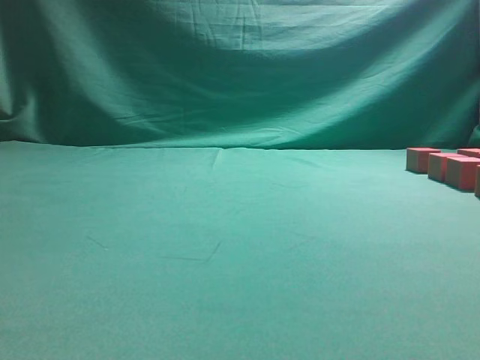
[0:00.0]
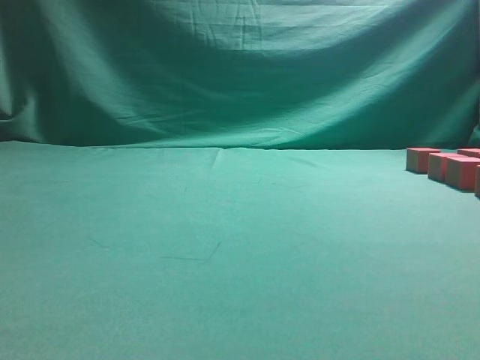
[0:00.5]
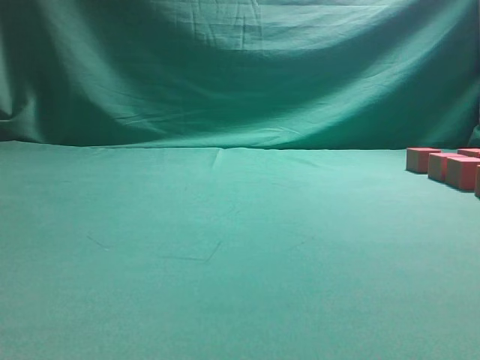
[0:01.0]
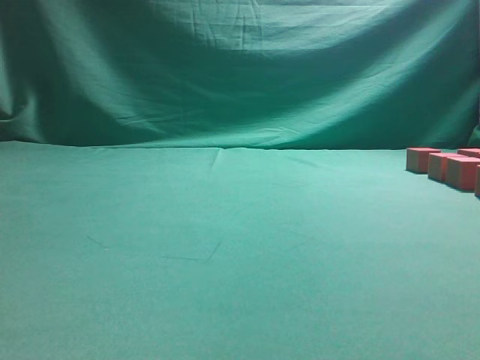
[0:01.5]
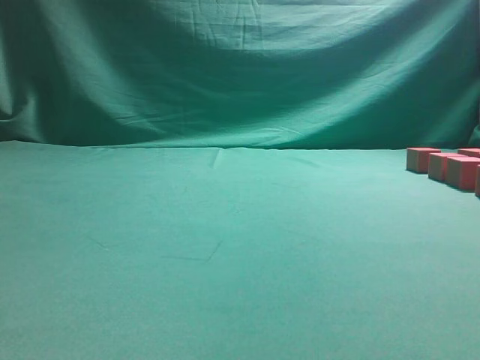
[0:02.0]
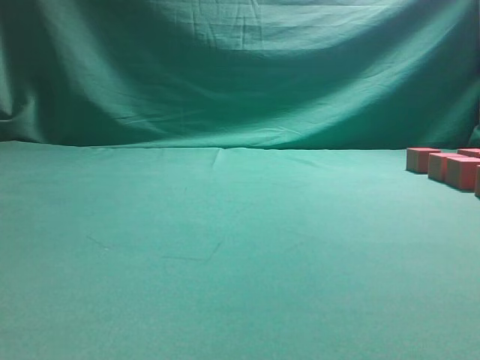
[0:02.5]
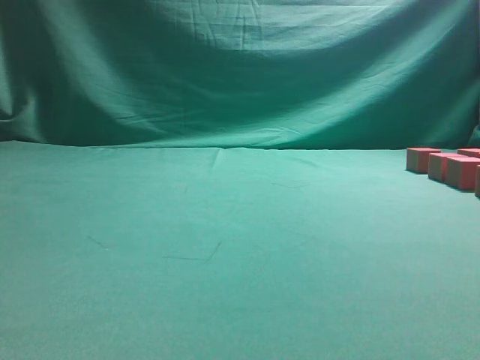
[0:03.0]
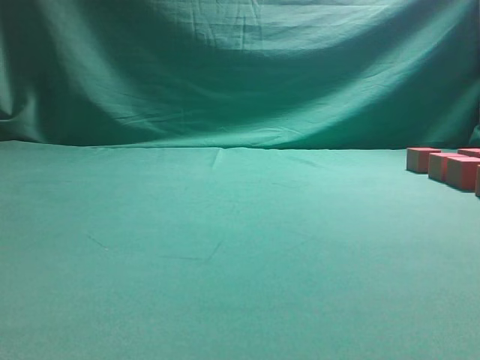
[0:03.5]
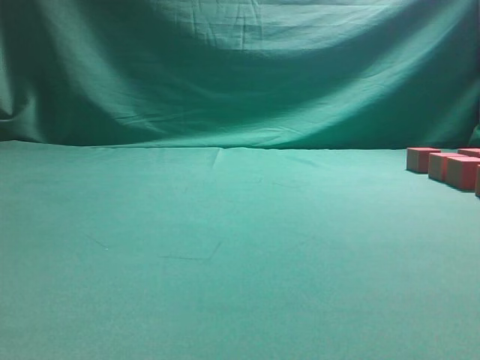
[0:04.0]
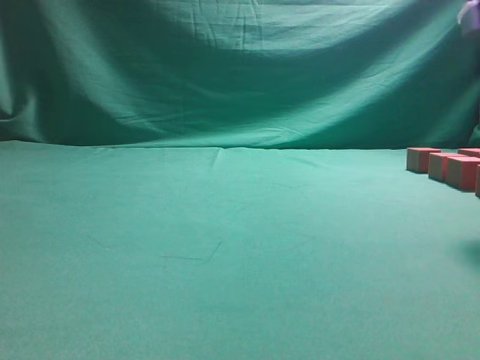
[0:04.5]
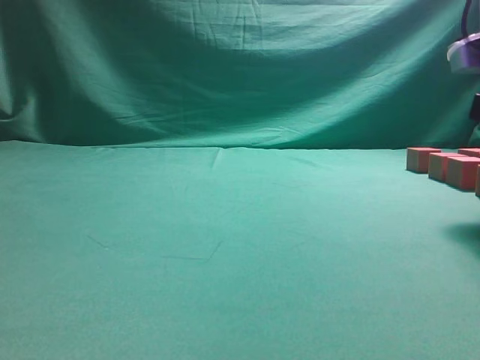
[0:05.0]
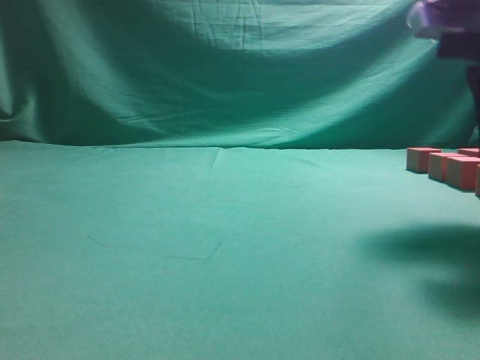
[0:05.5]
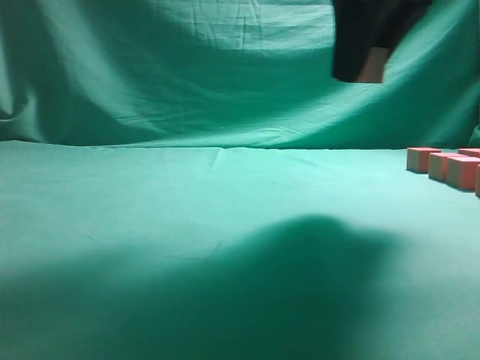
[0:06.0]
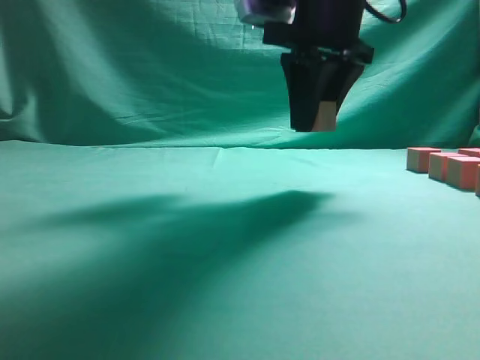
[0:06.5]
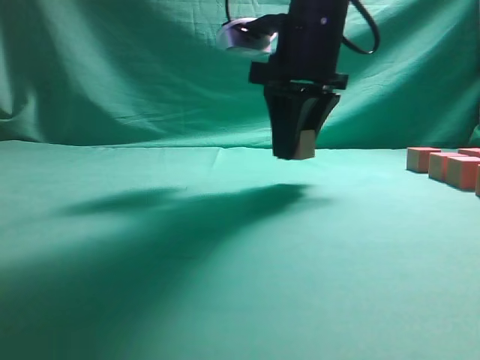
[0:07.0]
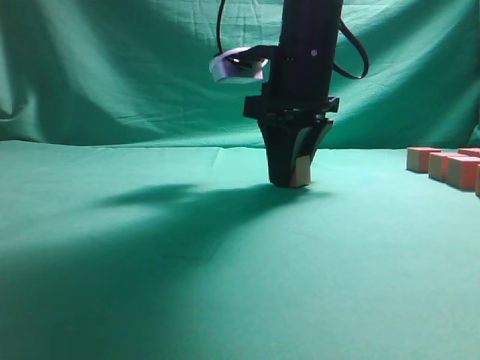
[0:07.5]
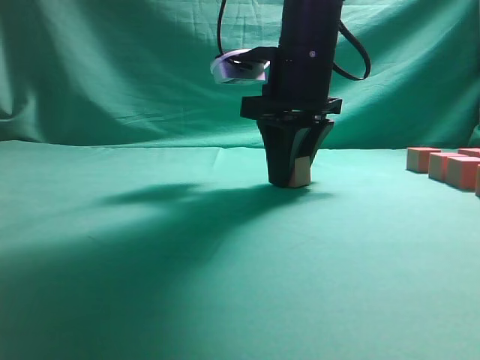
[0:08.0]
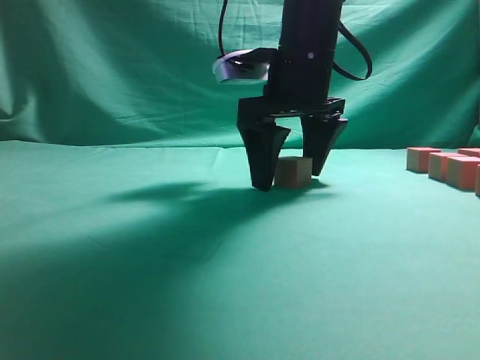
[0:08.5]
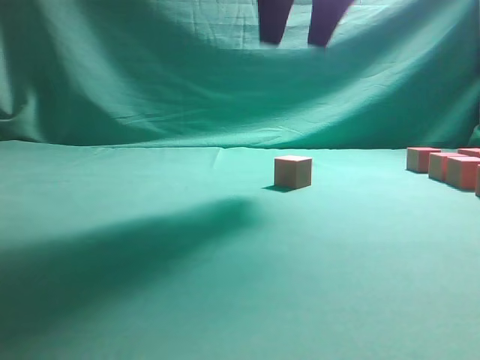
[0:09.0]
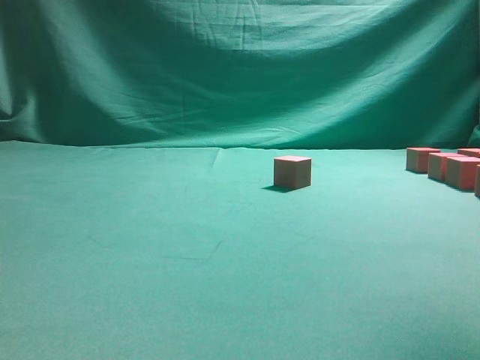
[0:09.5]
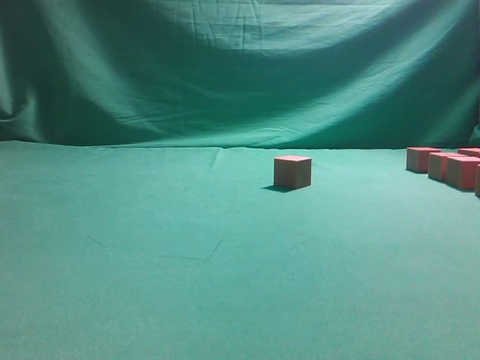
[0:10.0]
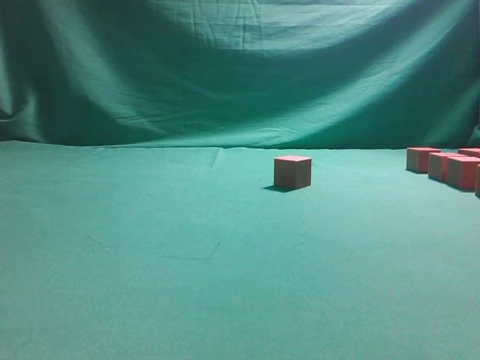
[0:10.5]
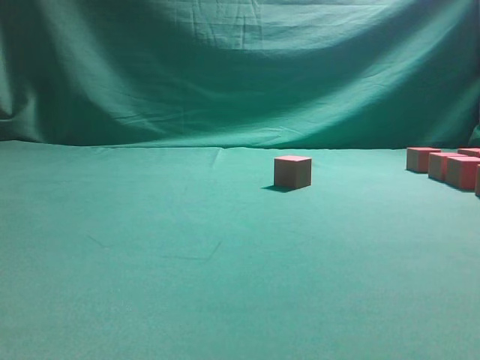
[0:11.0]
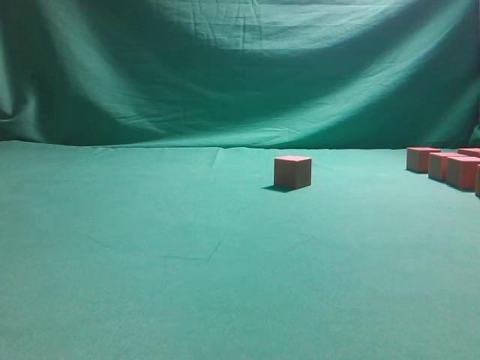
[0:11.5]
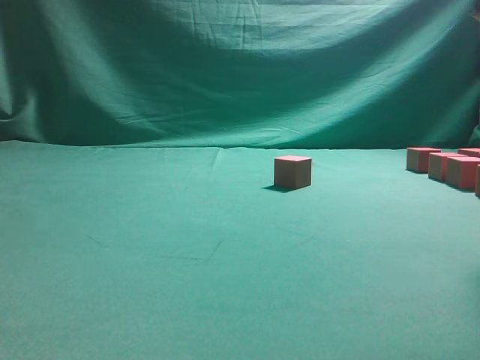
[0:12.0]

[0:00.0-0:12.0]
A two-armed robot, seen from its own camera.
Task of the whole recording: pick up the multiple cubes in two columns one by one and place them in another position on the table.
Step, 0:00.0 to 0:08.5: Place the block at the correct position to assemble the letter S.
0:04.0 to 0:06.0: The right gripper moves to the left and forward, about 15 cm.
0:06.0 to 0:08.0: The right gripper heads downward, forward and to the left, covering about 15 cm.
0:08.0 to 0:10.0: The right gripper travels to the right, upward and backward by some 30 cm, and opens up.

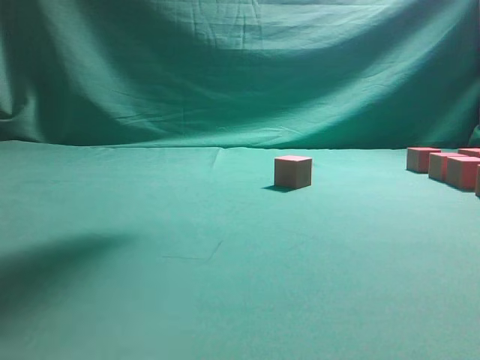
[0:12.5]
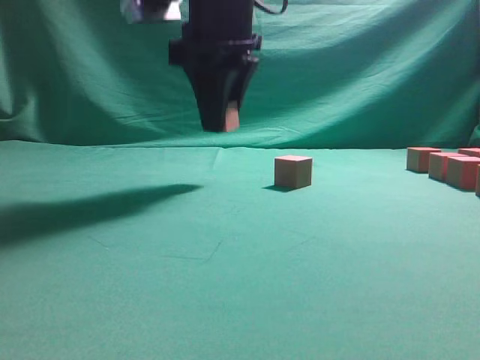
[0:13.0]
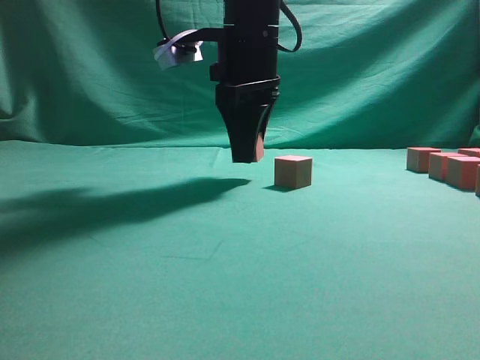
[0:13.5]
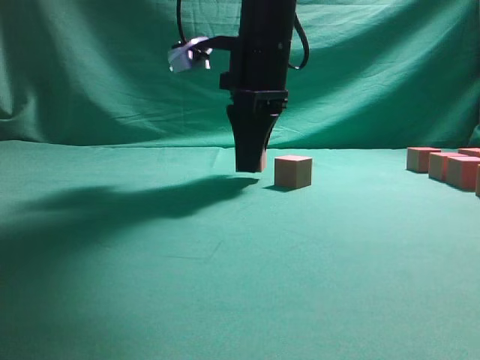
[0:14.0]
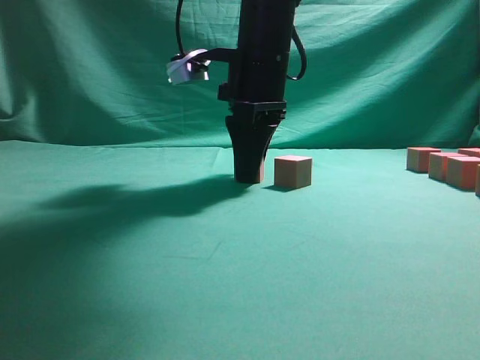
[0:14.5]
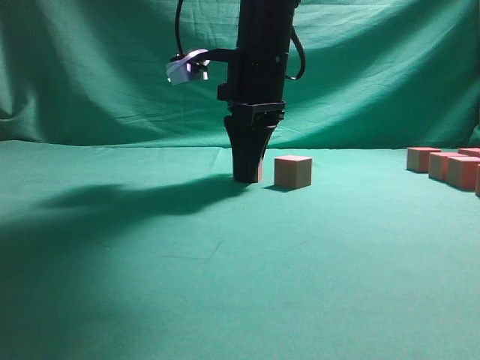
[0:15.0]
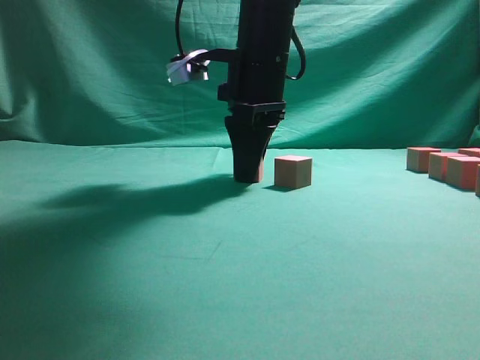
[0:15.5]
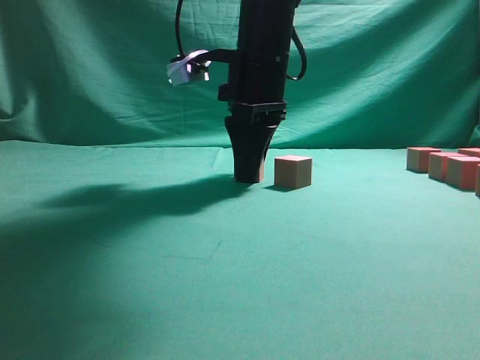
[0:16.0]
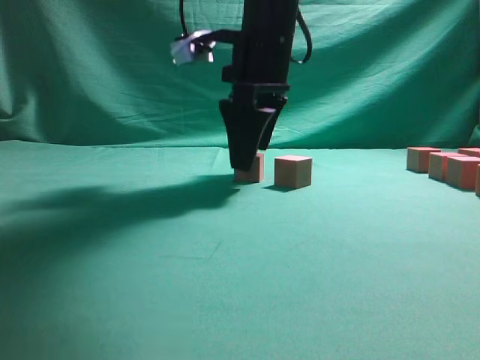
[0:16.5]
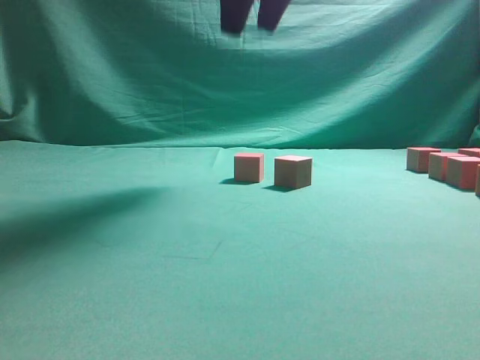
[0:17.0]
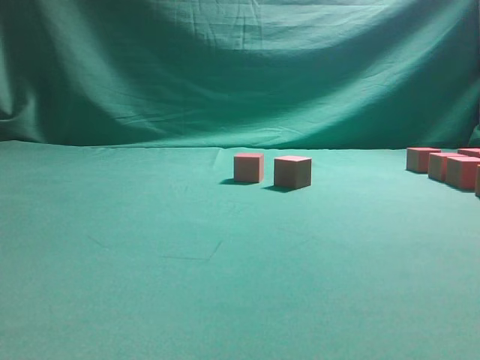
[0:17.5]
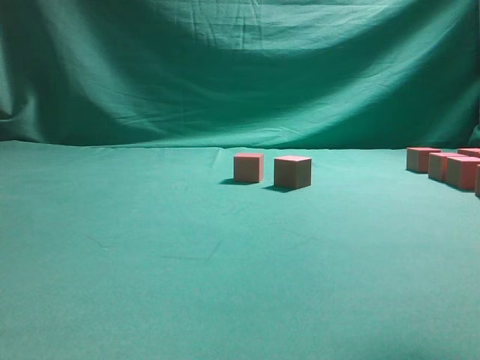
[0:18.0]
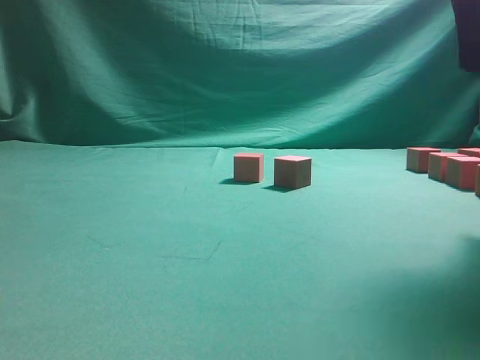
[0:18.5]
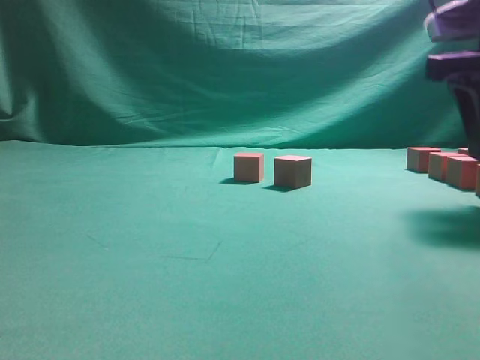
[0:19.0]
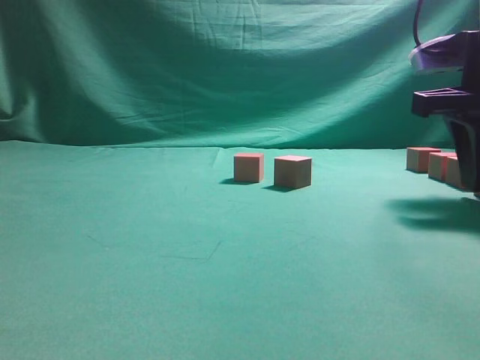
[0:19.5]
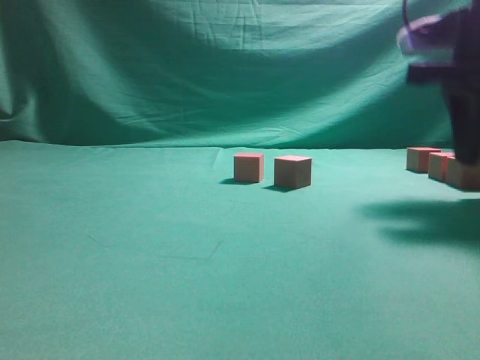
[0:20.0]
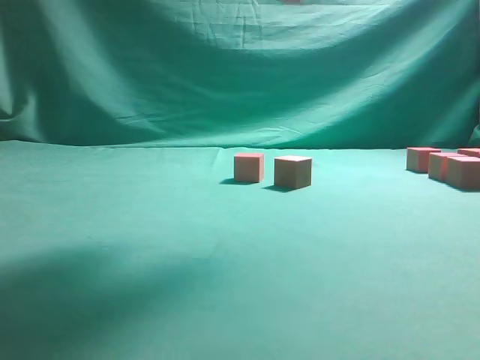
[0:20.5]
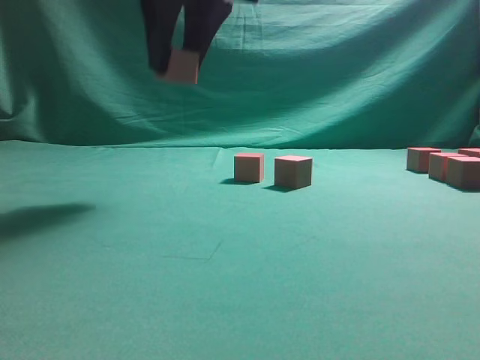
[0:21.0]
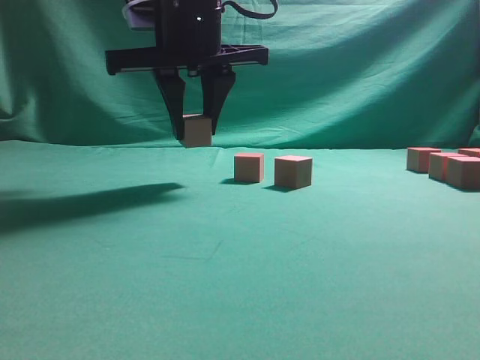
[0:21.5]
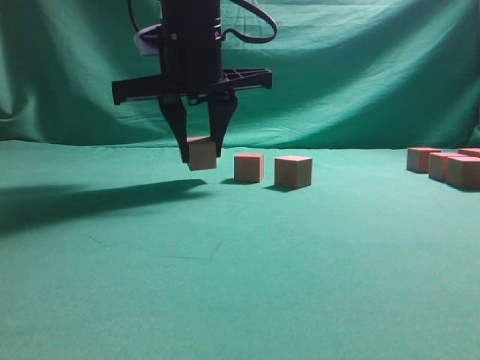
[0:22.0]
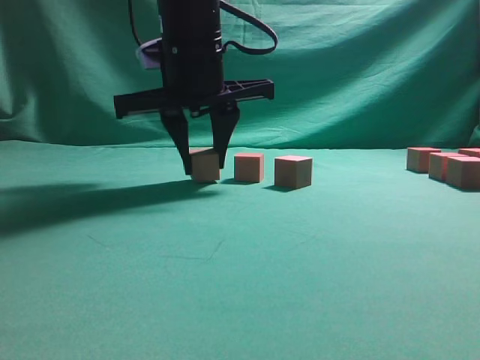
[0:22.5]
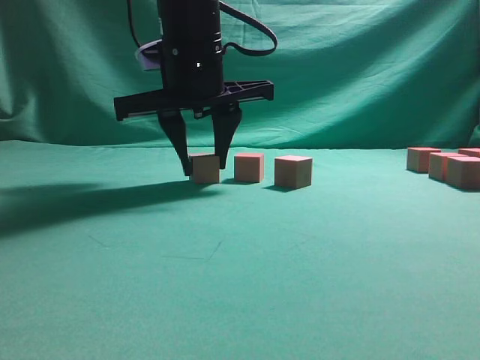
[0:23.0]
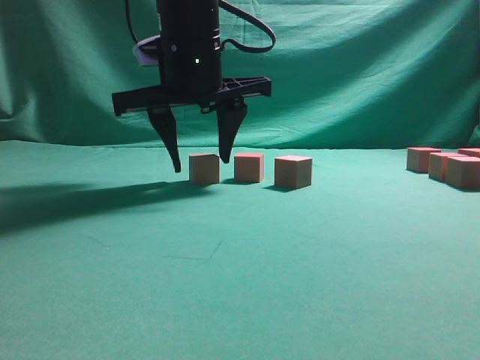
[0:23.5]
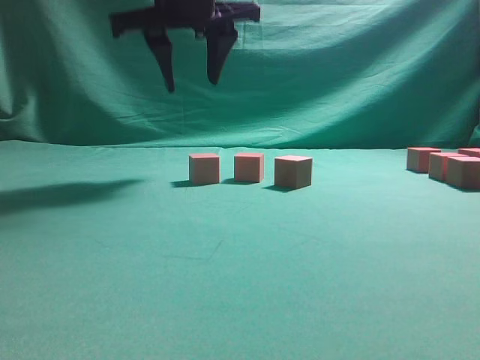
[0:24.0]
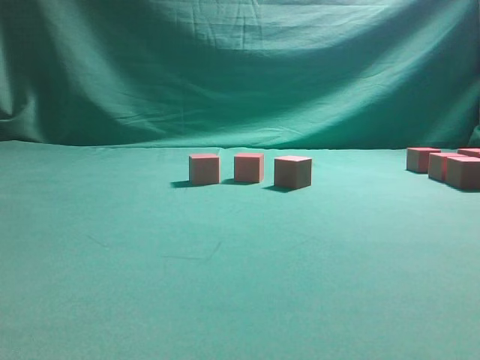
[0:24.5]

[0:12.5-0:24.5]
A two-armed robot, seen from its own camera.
Task of the whole recording: pick up the multiple cubes in two columns one by one and place them in another position on the table.
Step, 0:13.0 to 0:16.5: Place the block at the correct position to assemble the letter S.
Step, 0:17.0 to 0:20.0: Pick up the block on the table.
Step, 0:20.5 to 0:24.0: Place the block at the correct position to assemble the letter S.
0:12.5 to 0:14.5: The right gripper is displaced downward and forward by roughly 20 cm.
0:14.5 to 0:16.5: The right gripper opens its fingers.
0:16.5 to 0:18.5: The right gripper goes approximately 25 cm to the right and backward, and travels upward and back again, approximately 30 cm each way.
0:18.5 to 0:20.5: The right gripper moves to the left and upward, approximately 15 cm, and closes its fingers.
0:20.5 to 0:22.5: The right gripper goes about 20 cm downward, to the left and forward.
0:22.5 to 0:24.5: The right gripper heads upward, covering approximately 30 cm.

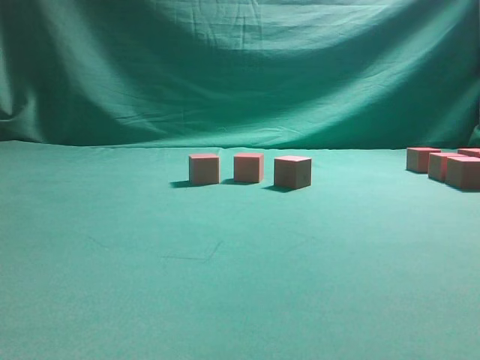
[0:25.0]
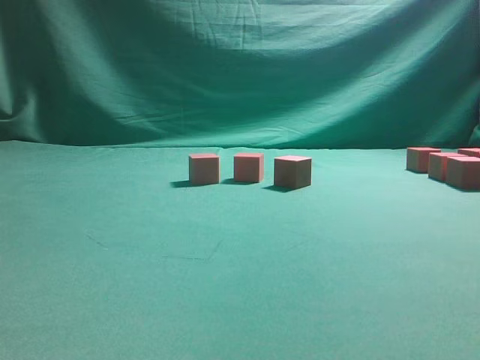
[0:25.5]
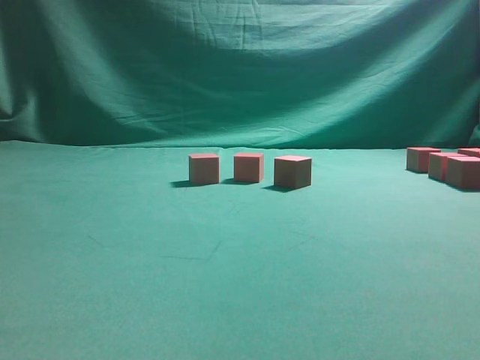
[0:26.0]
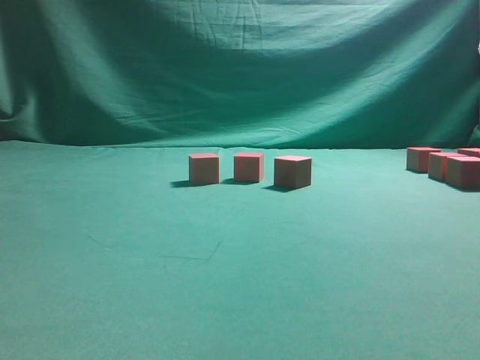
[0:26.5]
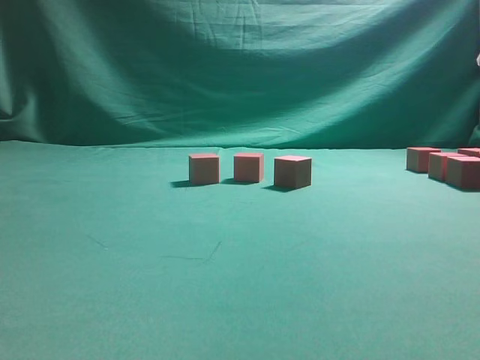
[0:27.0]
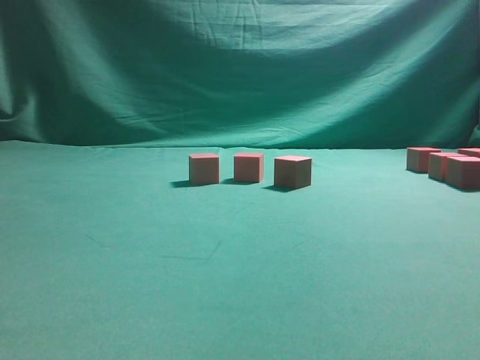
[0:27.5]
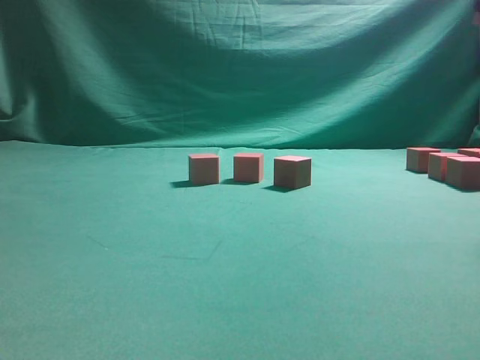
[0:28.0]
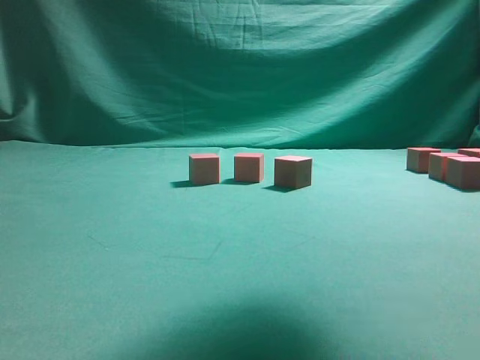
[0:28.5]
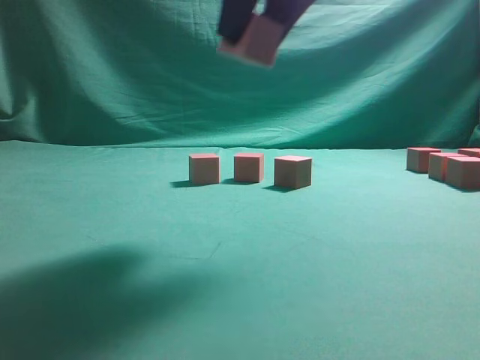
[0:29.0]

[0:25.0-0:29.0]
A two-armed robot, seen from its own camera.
Task of the whole recording: pick up the multiple cubes in two columns one by one and place them in another position on the table.
Step, 0:25.0 to 0:28.5: Pick up the block on the table.
0:27.0 to 0:29.0: The right gripper goes about 25 cm to the left and upward.
